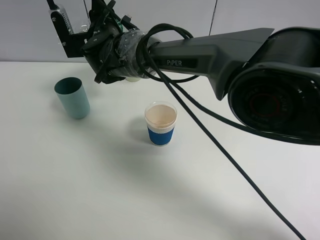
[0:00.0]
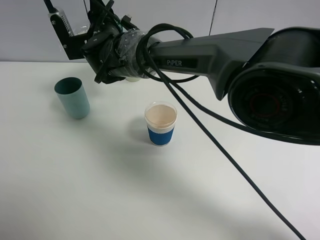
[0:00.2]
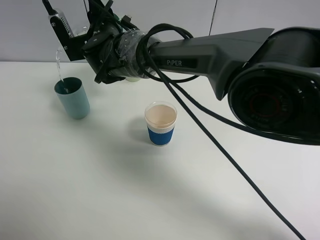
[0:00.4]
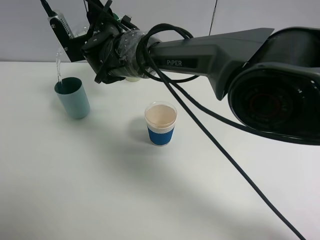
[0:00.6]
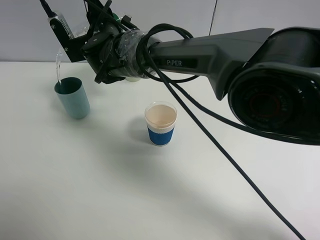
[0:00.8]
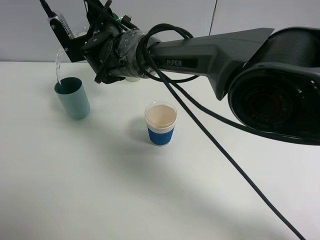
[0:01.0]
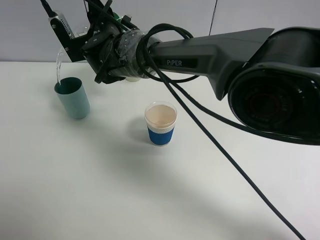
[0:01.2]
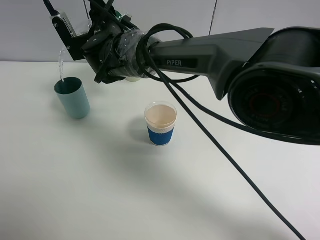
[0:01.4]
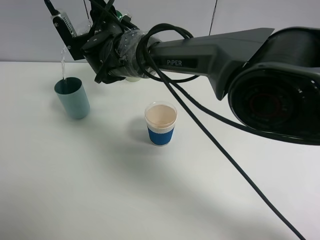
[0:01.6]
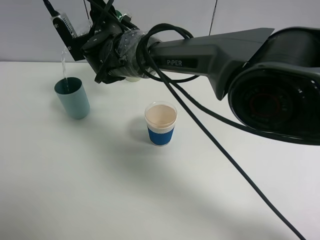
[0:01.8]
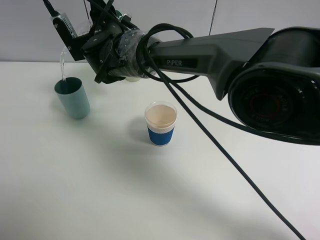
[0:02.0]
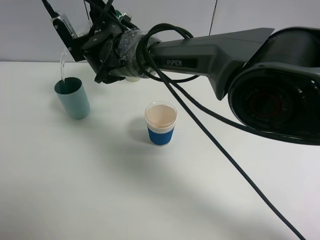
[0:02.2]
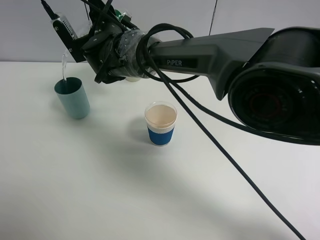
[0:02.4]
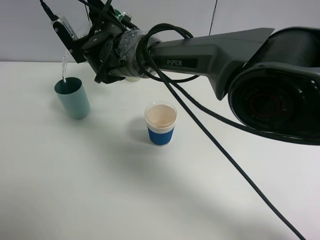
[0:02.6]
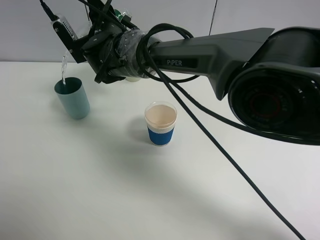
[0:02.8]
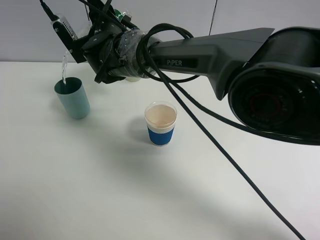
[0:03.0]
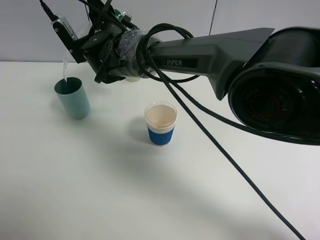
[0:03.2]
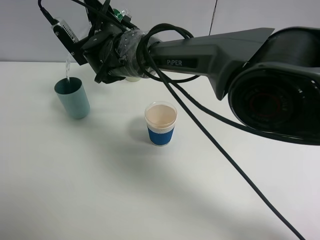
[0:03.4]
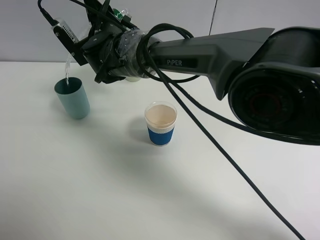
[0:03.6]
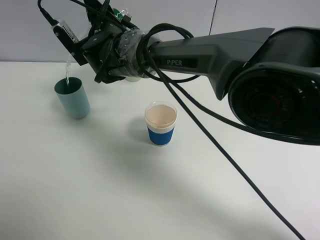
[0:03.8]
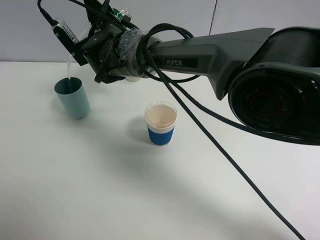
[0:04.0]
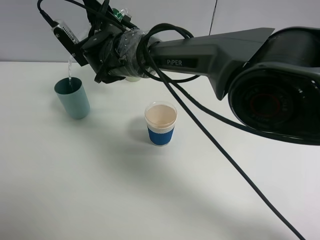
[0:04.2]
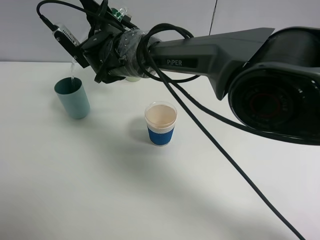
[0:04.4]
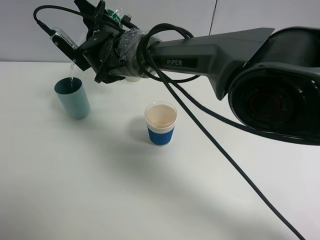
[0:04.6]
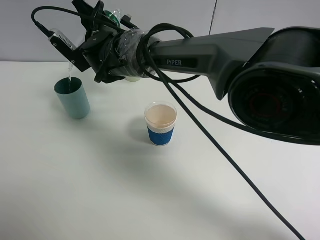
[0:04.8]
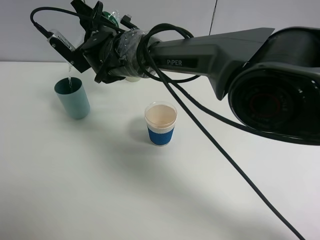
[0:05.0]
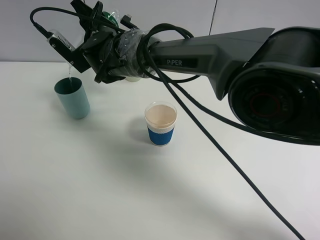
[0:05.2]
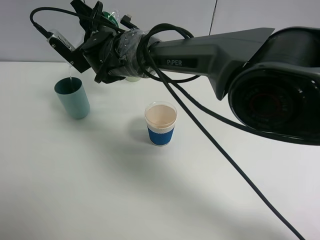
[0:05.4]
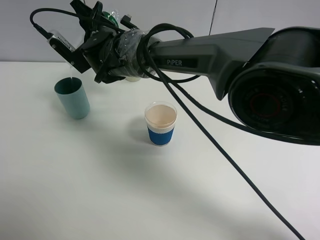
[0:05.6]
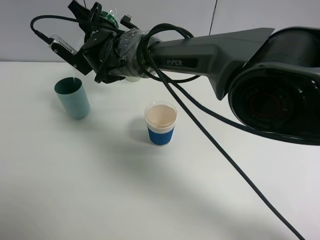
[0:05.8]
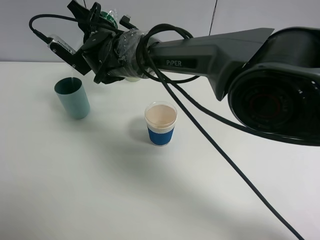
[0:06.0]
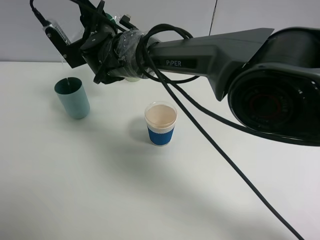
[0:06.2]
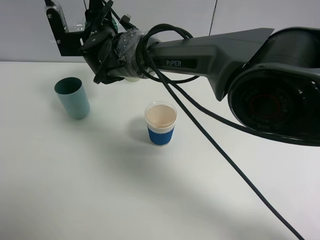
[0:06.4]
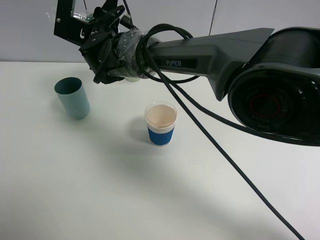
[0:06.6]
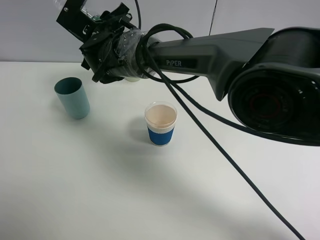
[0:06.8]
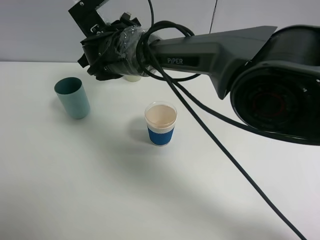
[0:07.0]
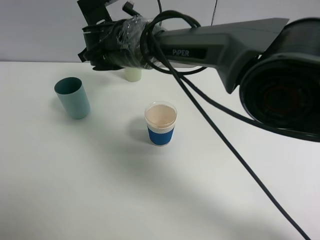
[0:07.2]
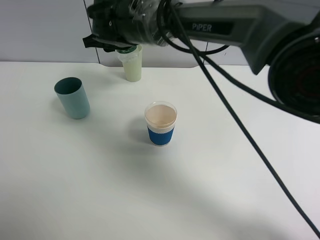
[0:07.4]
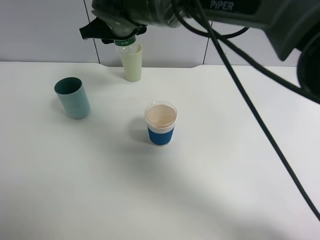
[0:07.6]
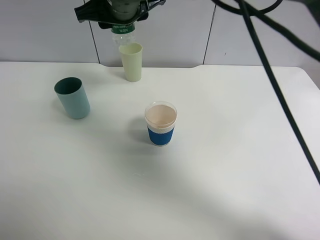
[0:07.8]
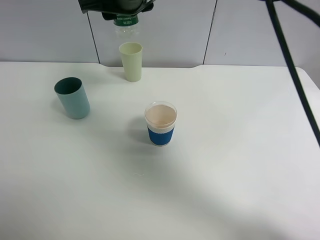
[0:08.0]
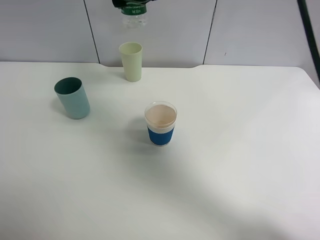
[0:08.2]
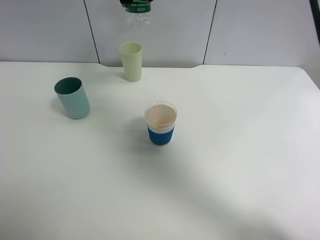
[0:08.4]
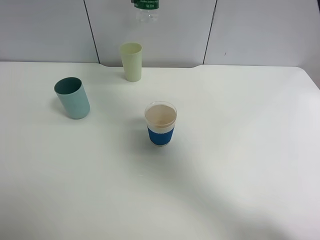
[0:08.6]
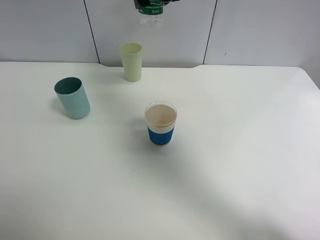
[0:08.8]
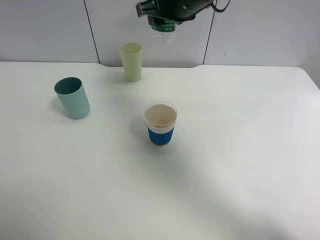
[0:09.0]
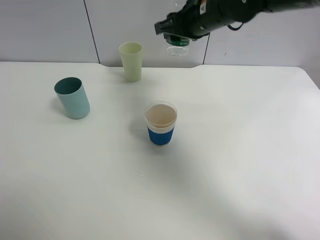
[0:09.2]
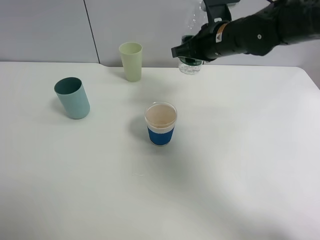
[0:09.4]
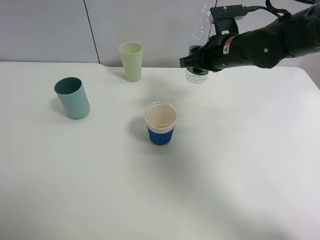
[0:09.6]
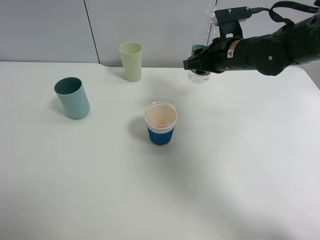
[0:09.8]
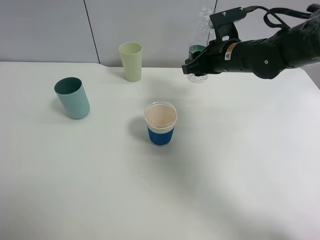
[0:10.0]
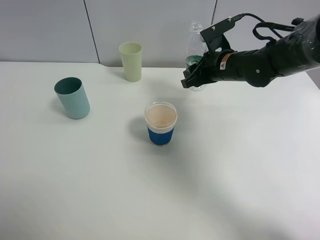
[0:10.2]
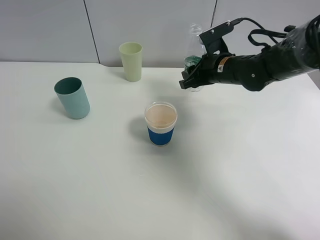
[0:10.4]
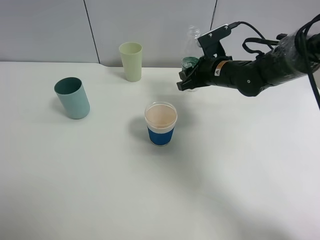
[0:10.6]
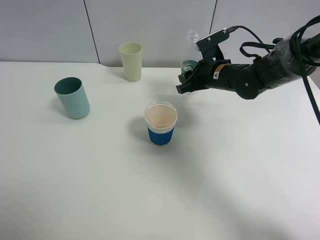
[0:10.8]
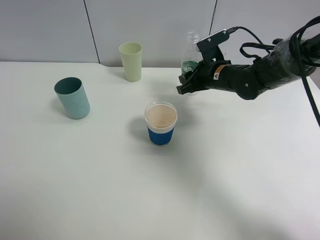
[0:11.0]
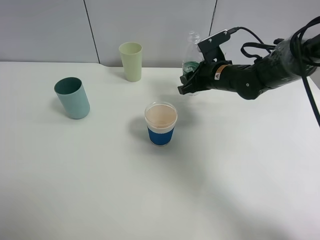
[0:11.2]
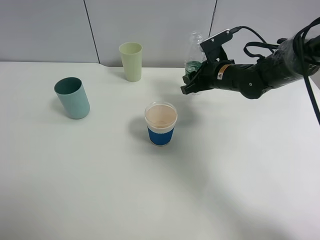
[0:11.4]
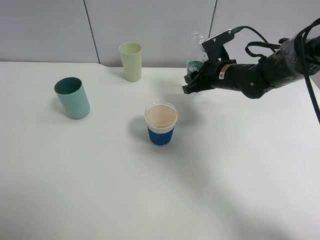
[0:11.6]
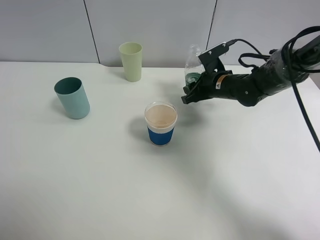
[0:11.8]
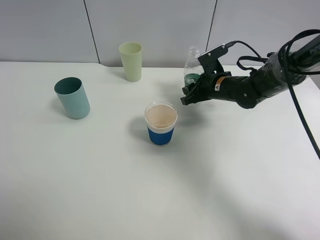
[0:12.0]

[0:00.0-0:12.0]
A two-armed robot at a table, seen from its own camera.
Task of the whole recording: use a clamp to hold the bottle of the drink, pour the beverage into a random cup, then clamp the cup containing the drink and pour the drink into another random cup.
Step, 0:00.0 to 0:07.0: Pour water into the blue plastic cup with right gripper.
0:00.0 to 0:03.0: The grippers make only small movements.
0:03.0 to 0:04.4: There are only small adjustments of the grippers.
0:04.4 to 0:06.0: The grippers stay close to where they were, moving slightly.
0:06.0 to 0:07.6: The right gripper moves upward, about 5 cm.
0:07.6 to 0:09.0: The right gripper is displaced to the right by some 15 cm.
0:09.0 to 0:10.4: The right gripper travels downward and to the right by some 15 cm.
0:10.4 to 0:12.0: The right gripper heads downward, covering approximately 5 cm.

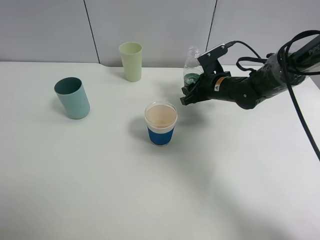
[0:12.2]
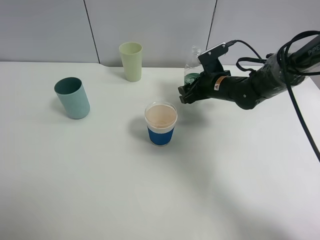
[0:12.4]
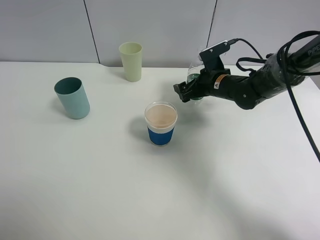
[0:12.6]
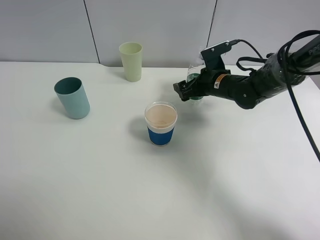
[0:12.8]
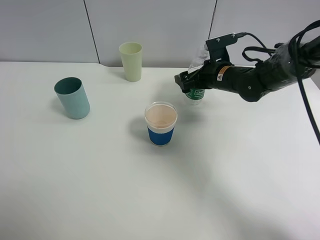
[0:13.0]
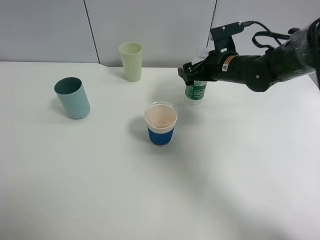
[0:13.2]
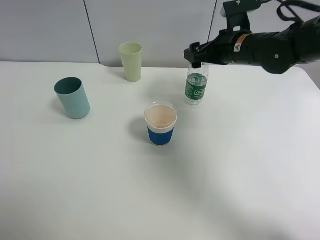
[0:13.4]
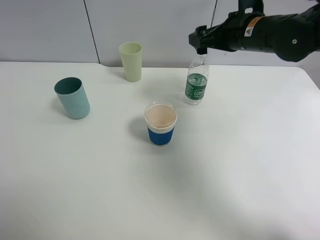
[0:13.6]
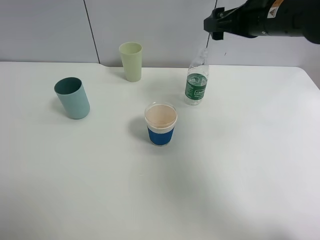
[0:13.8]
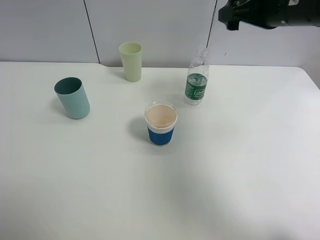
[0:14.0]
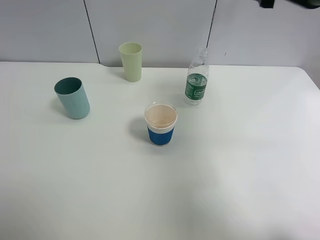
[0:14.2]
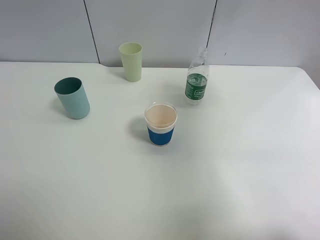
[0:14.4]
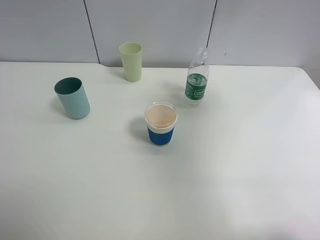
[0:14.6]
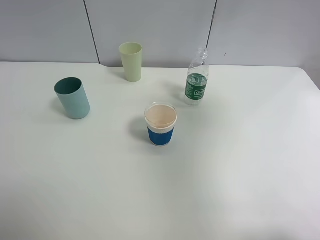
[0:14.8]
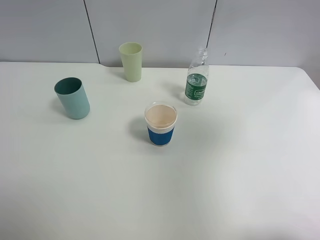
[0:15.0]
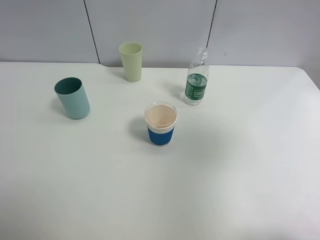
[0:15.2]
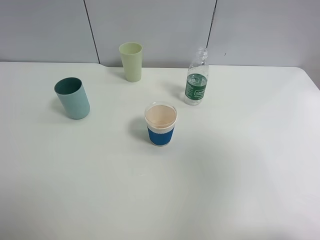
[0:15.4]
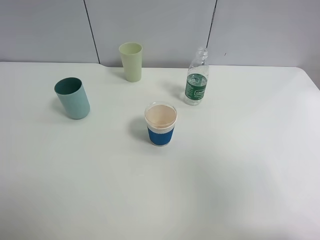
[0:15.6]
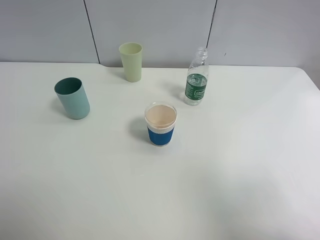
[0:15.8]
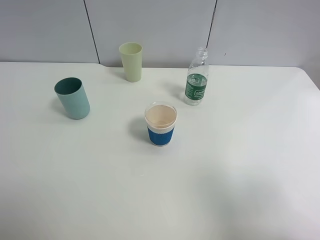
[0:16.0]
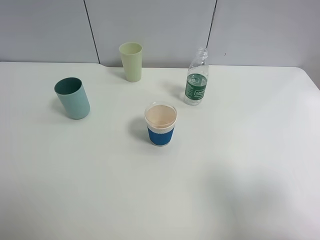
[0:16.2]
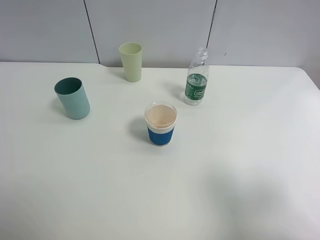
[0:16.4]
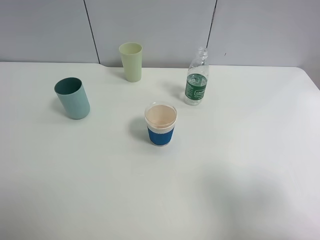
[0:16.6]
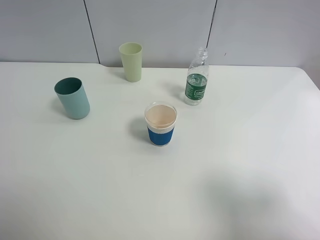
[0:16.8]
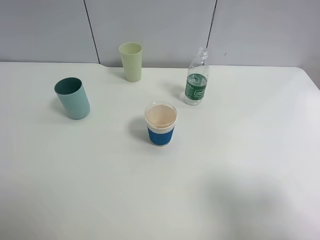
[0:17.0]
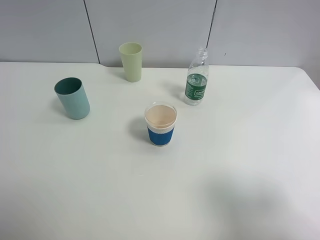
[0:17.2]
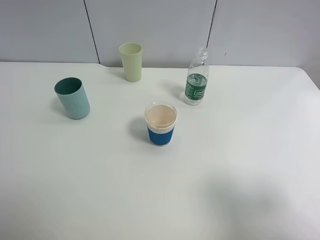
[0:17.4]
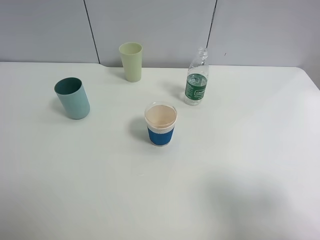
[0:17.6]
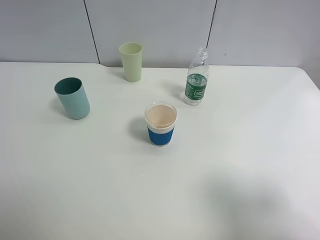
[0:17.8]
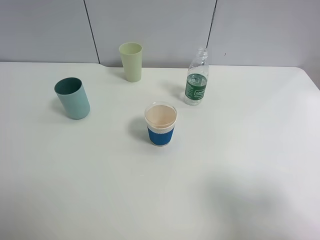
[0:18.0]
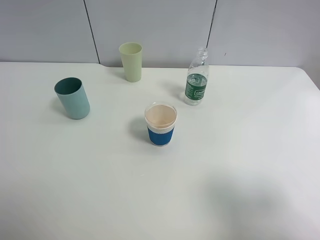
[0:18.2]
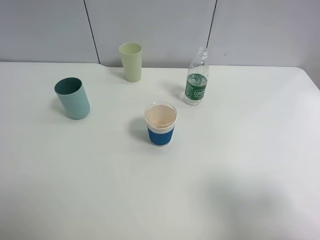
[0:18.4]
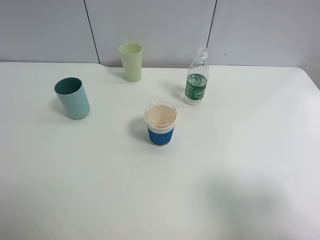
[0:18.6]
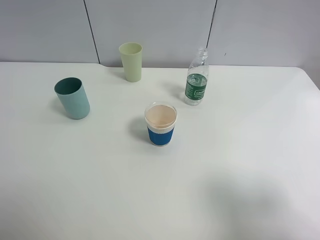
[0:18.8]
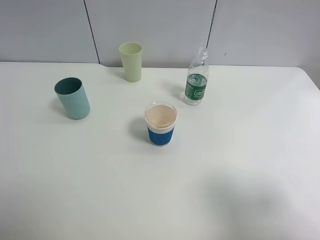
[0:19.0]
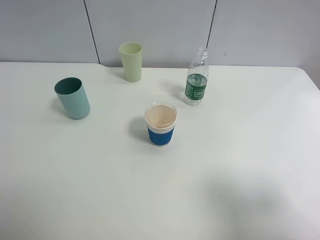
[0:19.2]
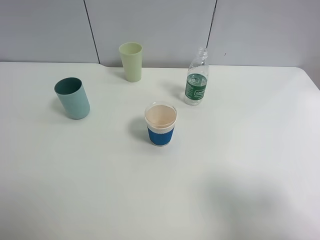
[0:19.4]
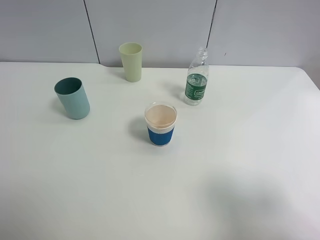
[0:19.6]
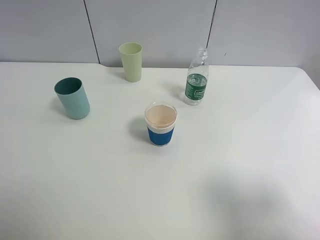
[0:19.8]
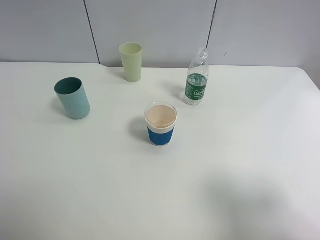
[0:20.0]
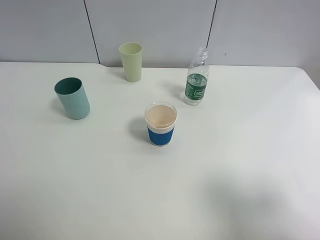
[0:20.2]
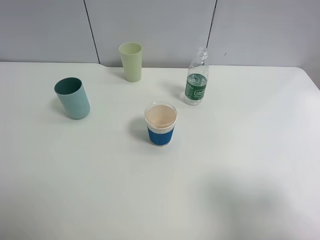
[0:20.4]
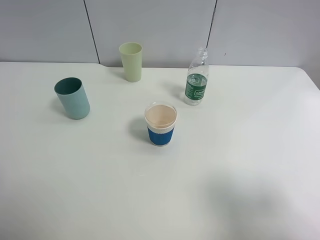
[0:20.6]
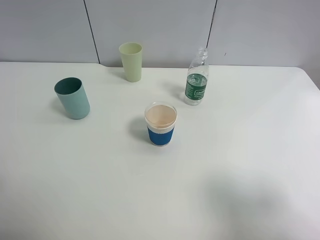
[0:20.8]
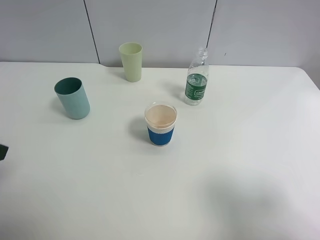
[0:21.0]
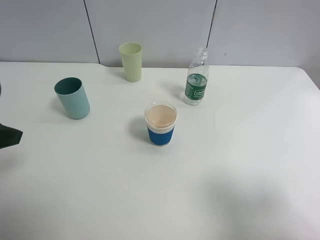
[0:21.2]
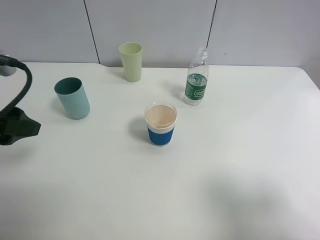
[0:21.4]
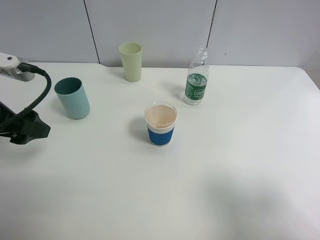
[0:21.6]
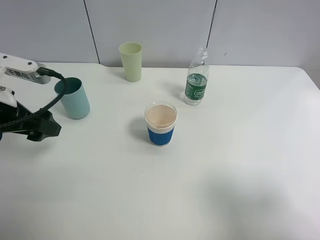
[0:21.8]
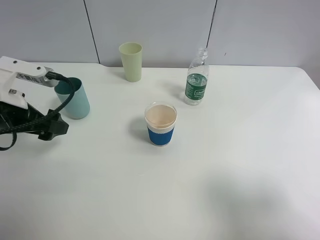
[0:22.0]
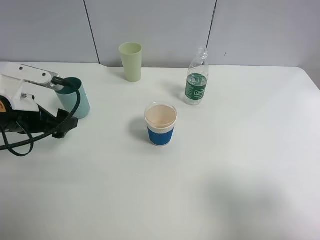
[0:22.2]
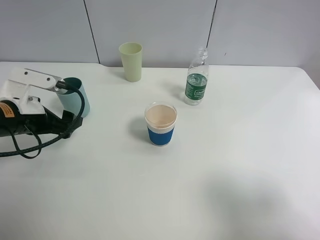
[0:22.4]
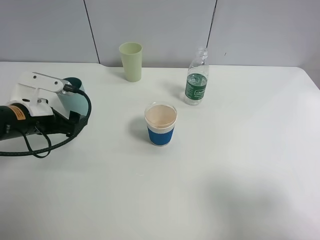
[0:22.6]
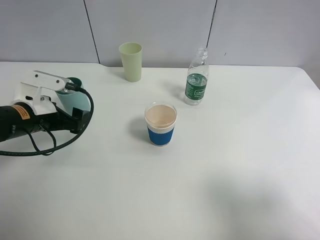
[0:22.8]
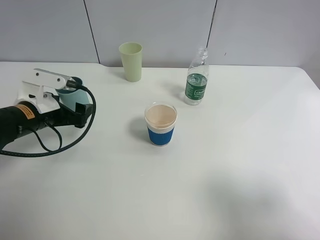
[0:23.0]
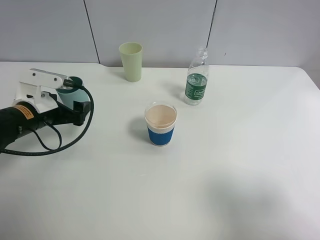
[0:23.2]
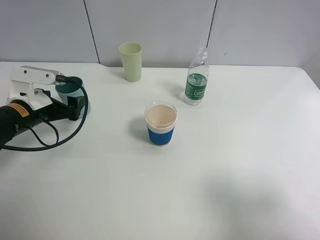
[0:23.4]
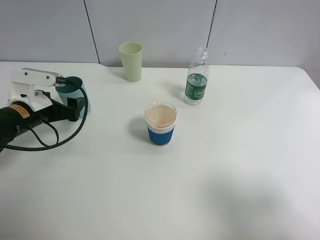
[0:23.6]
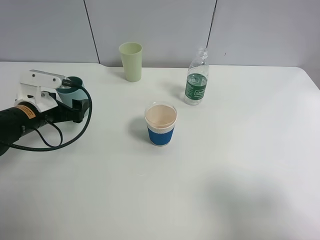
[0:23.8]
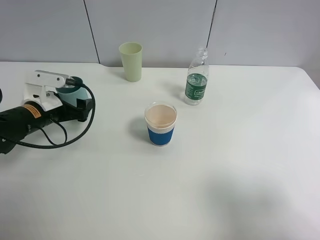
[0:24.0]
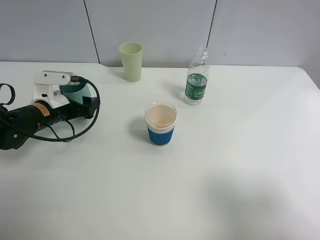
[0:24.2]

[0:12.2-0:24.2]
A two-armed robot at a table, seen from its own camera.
Task of the whole recording: use a clamp to hold the bottle of the drink, pour the beverage into a random cup, then clamp the cup containing the drink and pour the drink into another random cup.
0:12.2 to 0:13.8: The right gripper shifts some 20 cm upward, and opens up.
0:13.8 to 0:15.2: The right gripper travels backward, upward and to the right by roughly 30 cm.
0:15.2 to 0:16.6: The right gripper heads downward and backward, covering roughly 15 cm.
0:18.2 to 0:19.8: Neither gripper changes place.
0:19.8 to 0:21.2: The left gripper is displaced forward by about 15 cm.
0:21.2 to 0:22.6: The left gripper heads downward and forward, covering approximately 15 cm.
0:22.6 to 0:24.2: The left gripper goes approximately 5 cm forward.
